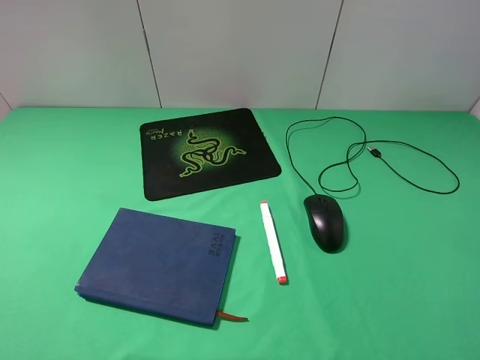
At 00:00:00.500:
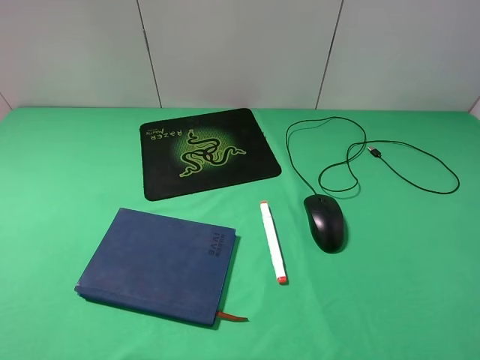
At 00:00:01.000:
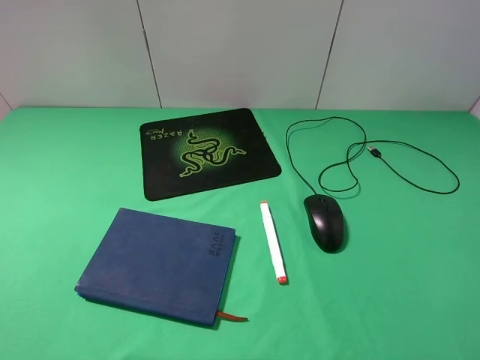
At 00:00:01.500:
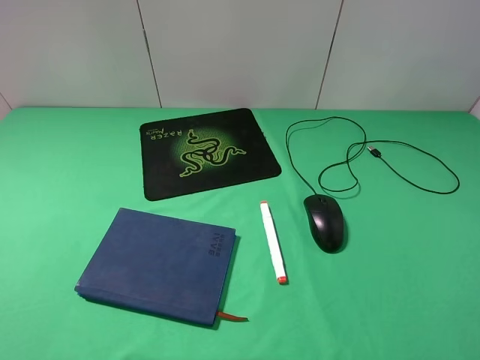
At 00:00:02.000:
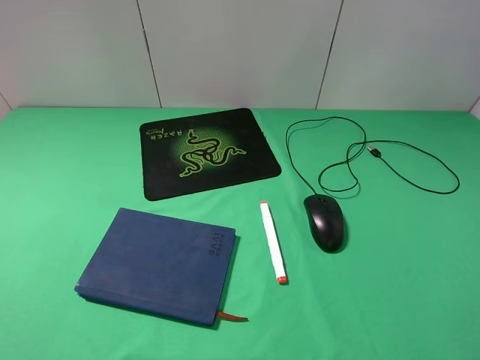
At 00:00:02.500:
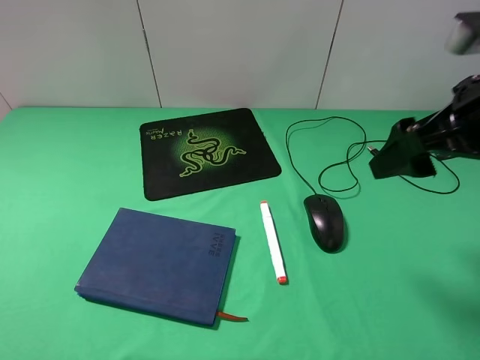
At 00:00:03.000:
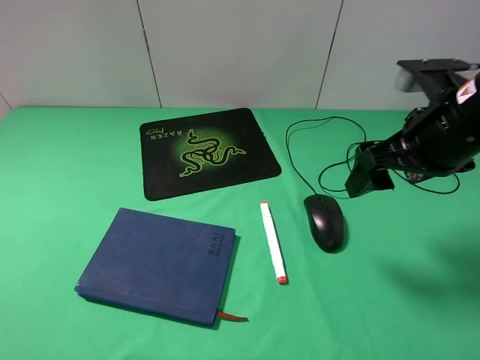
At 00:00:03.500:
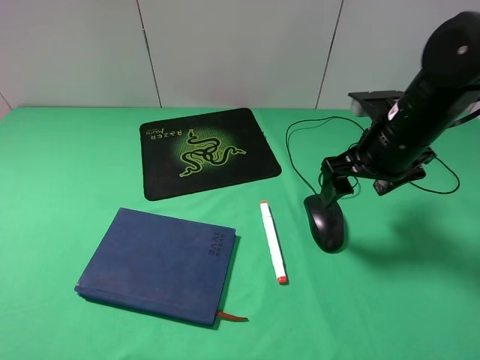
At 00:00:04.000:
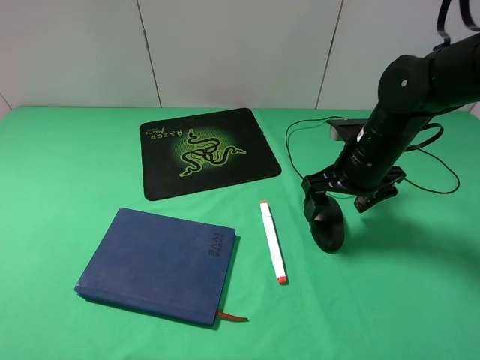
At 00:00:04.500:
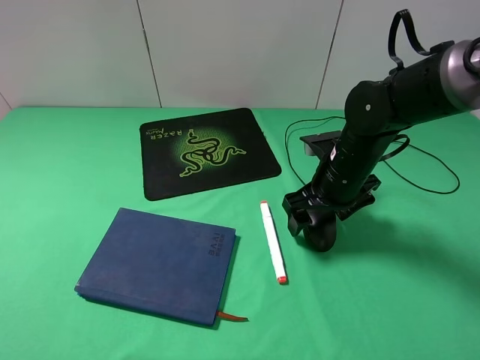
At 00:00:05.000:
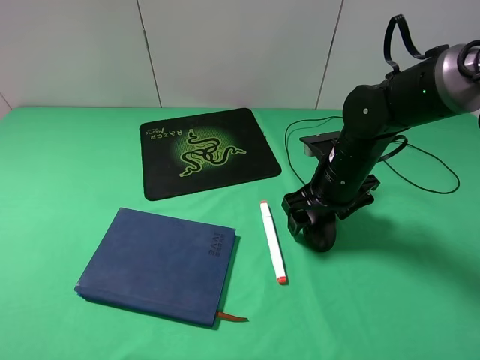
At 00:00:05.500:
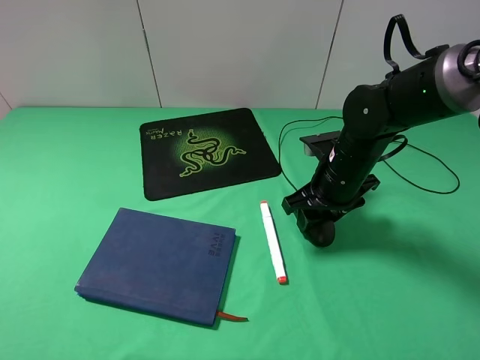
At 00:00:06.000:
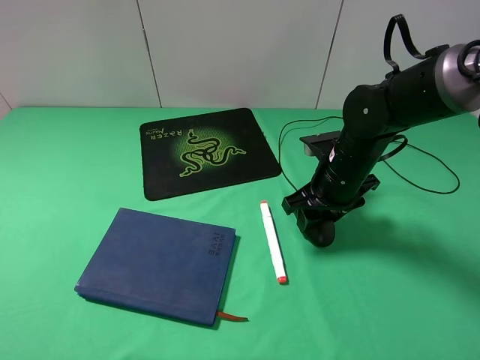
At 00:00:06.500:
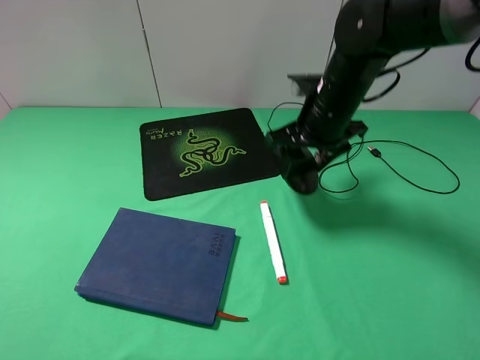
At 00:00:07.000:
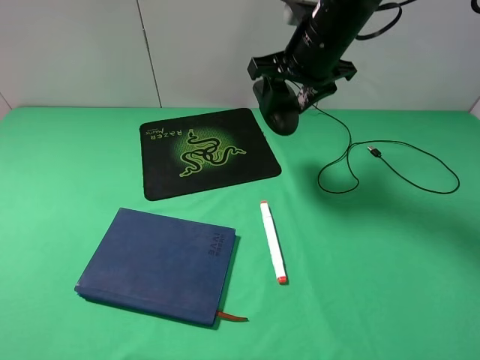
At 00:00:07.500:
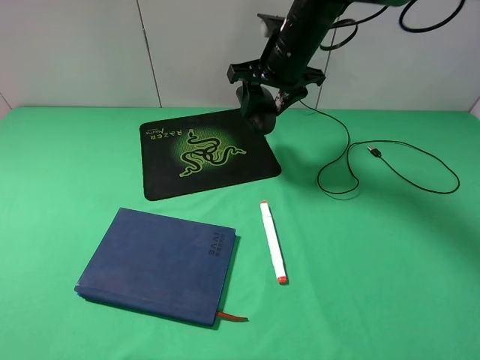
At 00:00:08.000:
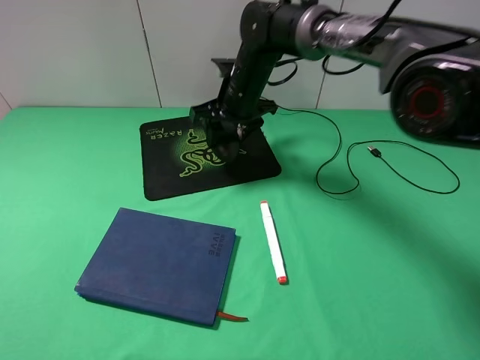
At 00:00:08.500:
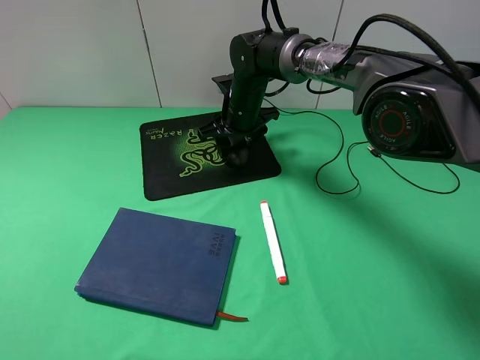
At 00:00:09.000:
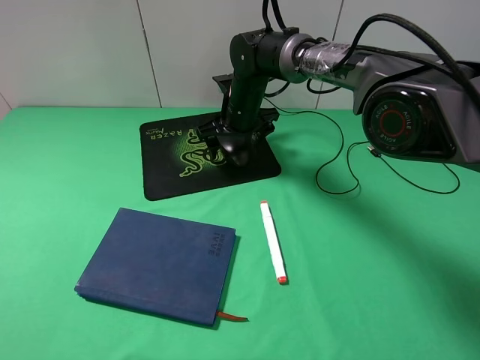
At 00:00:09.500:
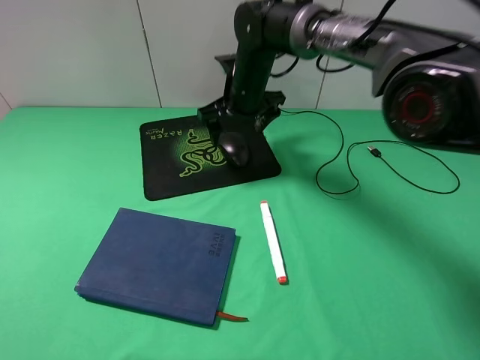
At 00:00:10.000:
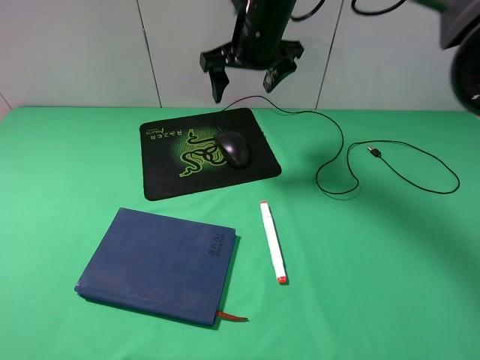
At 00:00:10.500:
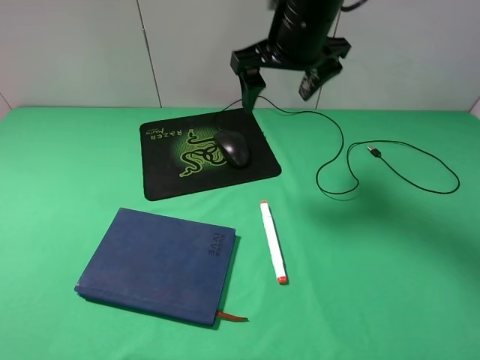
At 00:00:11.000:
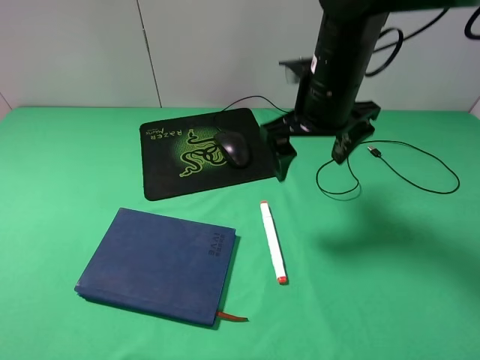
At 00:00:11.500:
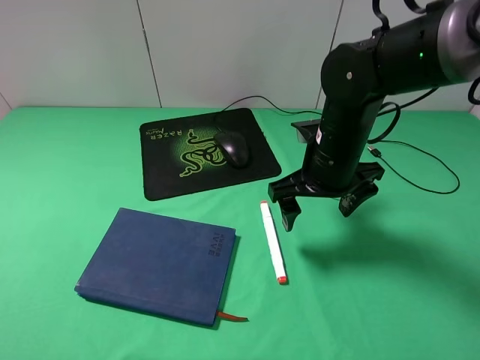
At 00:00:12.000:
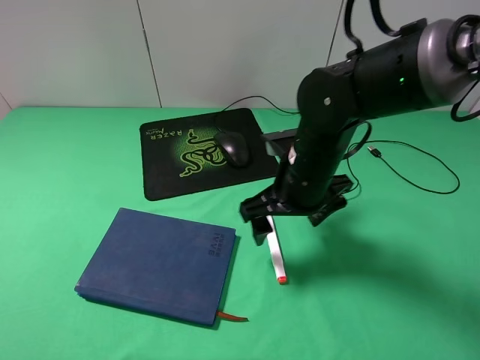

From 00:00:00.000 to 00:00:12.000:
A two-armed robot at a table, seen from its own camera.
Step, from 00:00:00.000 to 00:00:05.500: Grasp the mouse with the right gripper.
Step, from 00:00:06.000 to 00:00:09.500: Place the mouse on the mouse pad with the right gripper.
From 00:00:02.000 to 00:00:04.000: The right gripper is displaced downward, forward and to the left by about 25 cm.
From 00:00:04.000 to 00:00:06.000: The right gripper closes its fingers.
From 00:00:06.000 to 00:00:08.000: The right gripper travels to the left and forward by approximately 20 cm, and moves about 15 cm upward and comes back.
From 00:00:08.000 to 00:00:10.000: The right gripper heads upward, covering approximately 10 cm, and opens.
From 00:00:10.000 to 00:00:12.000: The right gripper is displaced backward and downward by some 20 cm.

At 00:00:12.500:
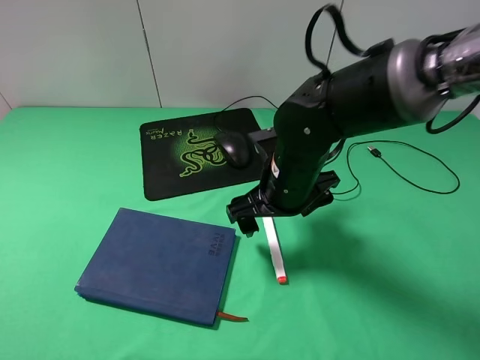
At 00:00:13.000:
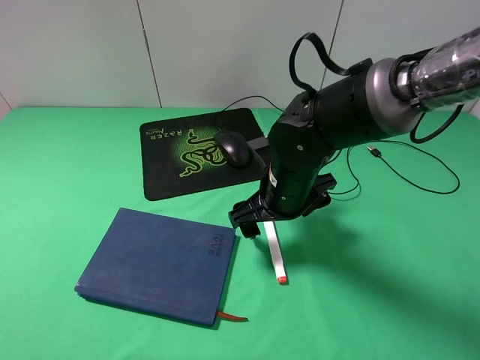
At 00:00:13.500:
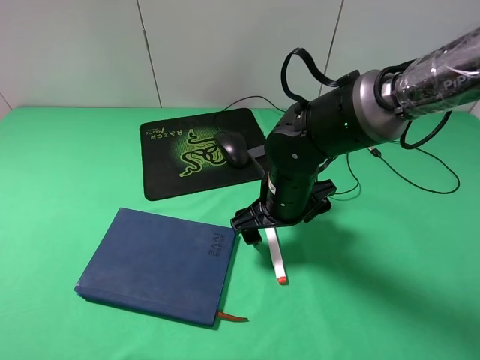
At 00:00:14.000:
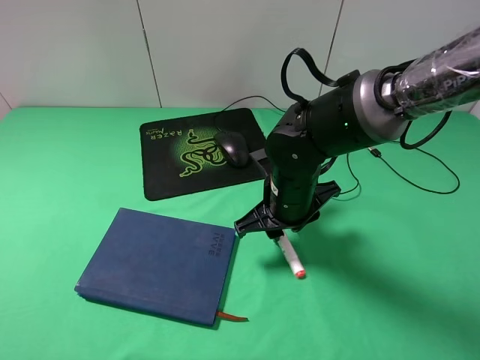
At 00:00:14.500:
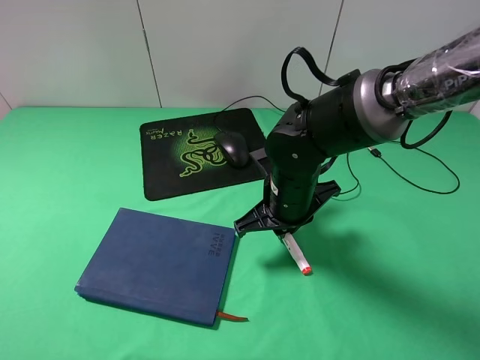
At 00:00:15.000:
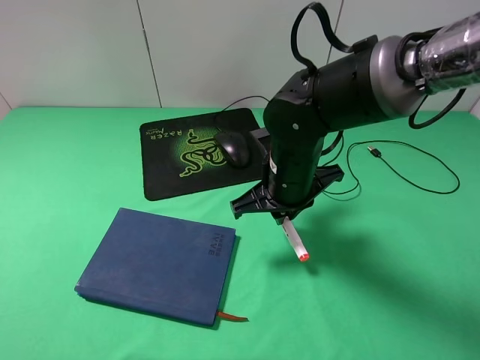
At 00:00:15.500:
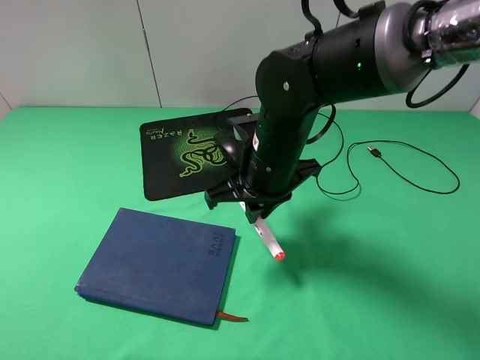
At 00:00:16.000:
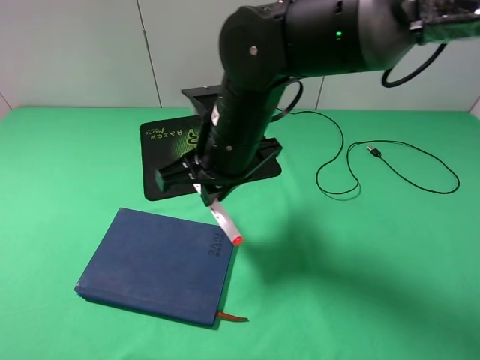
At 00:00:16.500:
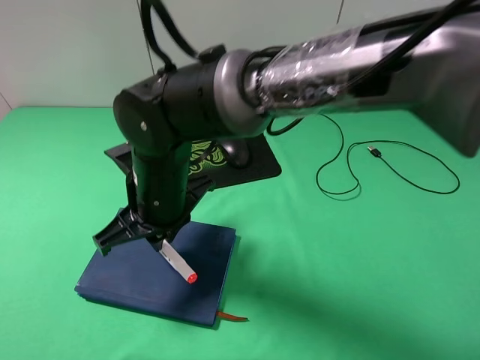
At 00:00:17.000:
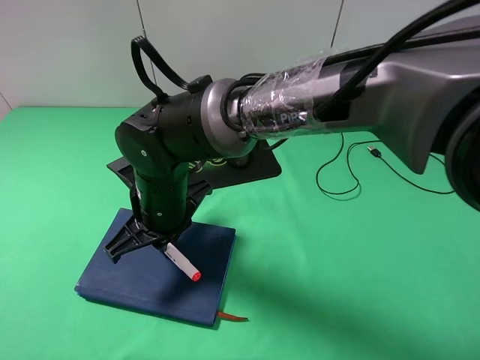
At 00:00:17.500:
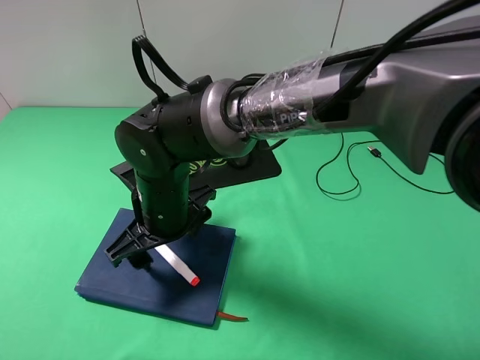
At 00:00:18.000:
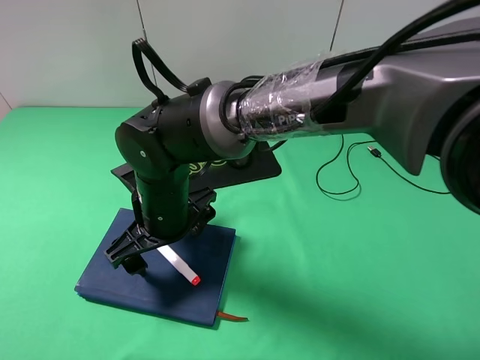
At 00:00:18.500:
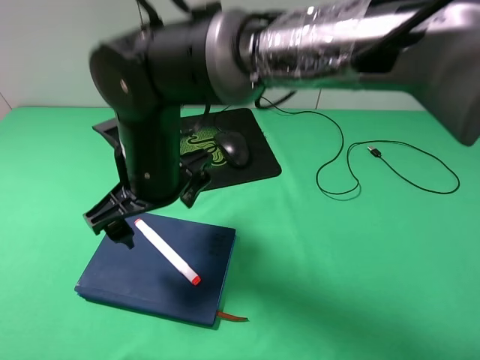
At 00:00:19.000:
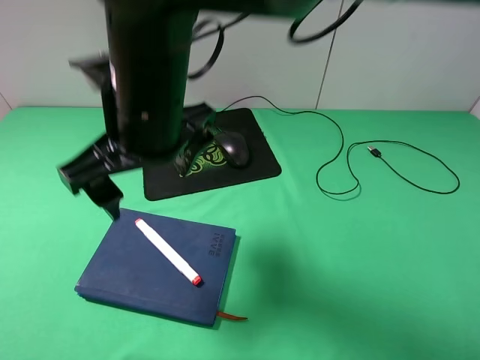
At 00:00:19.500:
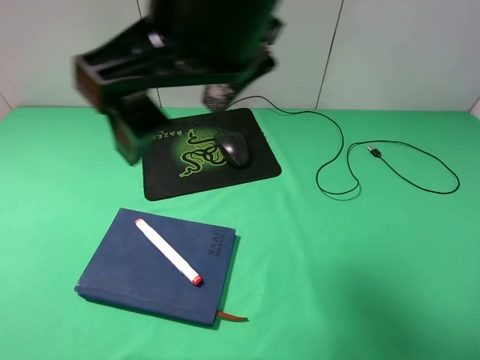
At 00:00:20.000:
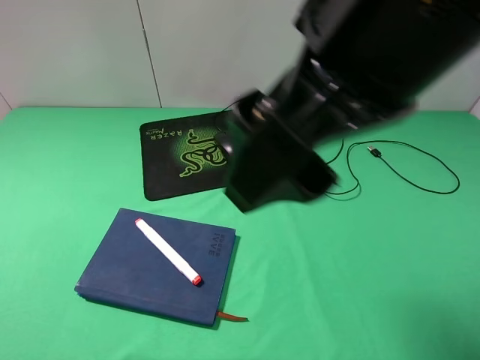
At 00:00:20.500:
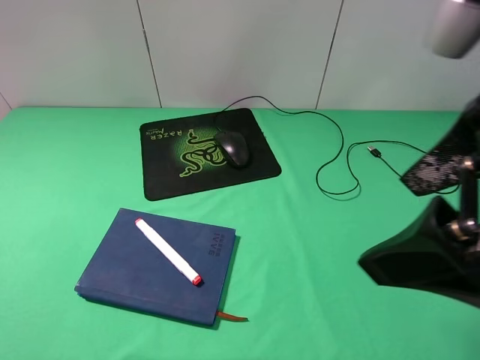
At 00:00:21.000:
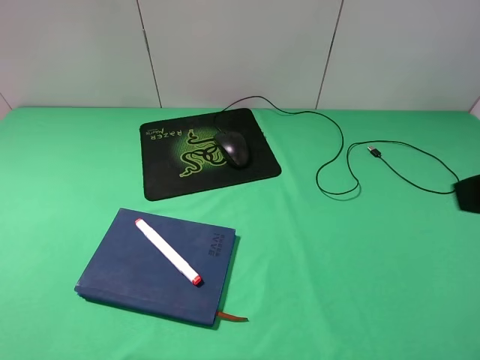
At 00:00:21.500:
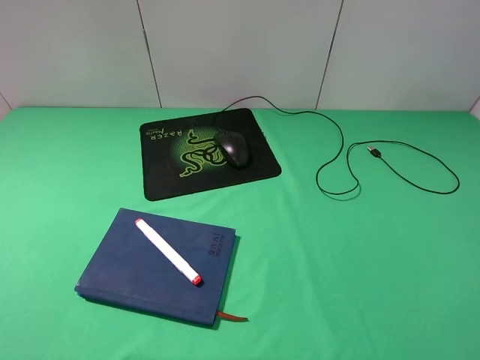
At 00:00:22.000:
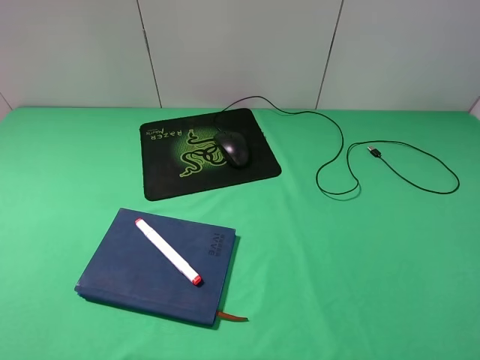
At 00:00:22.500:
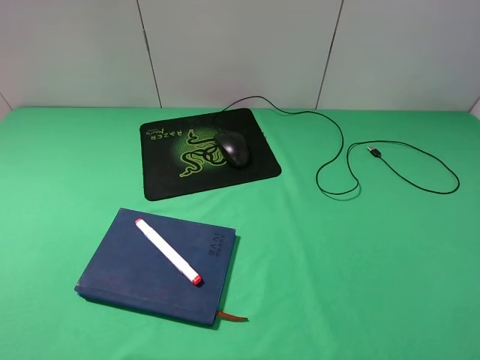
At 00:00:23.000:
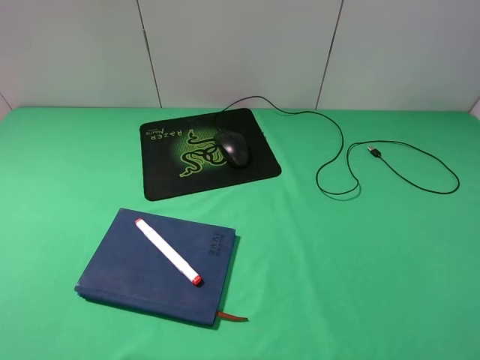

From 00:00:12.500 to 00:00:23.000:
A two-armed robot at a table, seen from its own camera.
Step, from 00:00:14.500 to 00:00:17.500: Place the marker on the notebook with the right gripper.
From 00:00:12.500 to 00:00:14.500: The right gripper closes.
From 00:00:14.500 to 00:00:16.500: The right gripper travels to the left by some 15 cm.
From 00:00:16.500 to 00:00:19.000: The right gripper heads upward, covering about 15 cm, and opens its fingers.
From 00:00:19.000 to 00:00:21.000: The right gripper goes some 35 cm to the right and backward.
